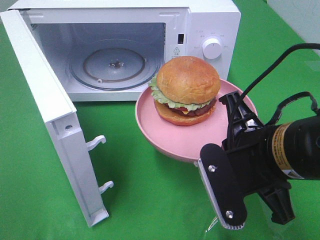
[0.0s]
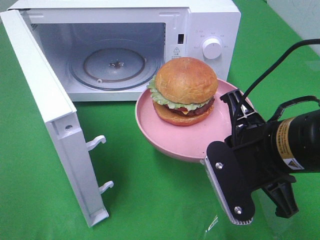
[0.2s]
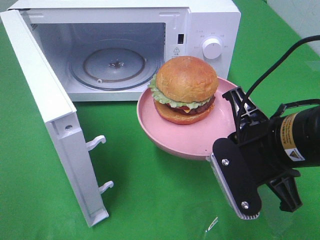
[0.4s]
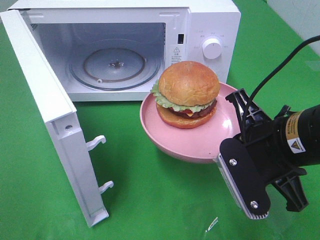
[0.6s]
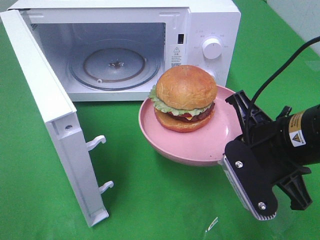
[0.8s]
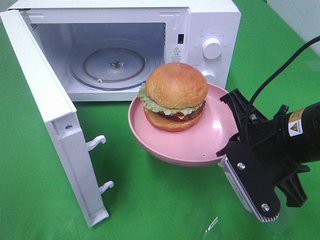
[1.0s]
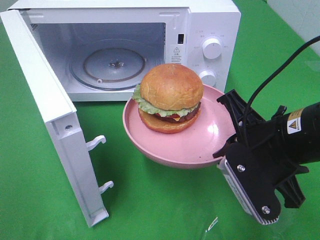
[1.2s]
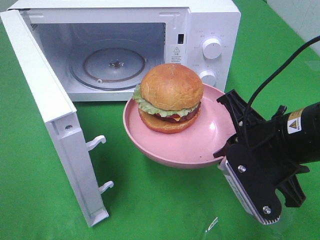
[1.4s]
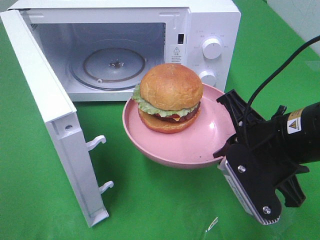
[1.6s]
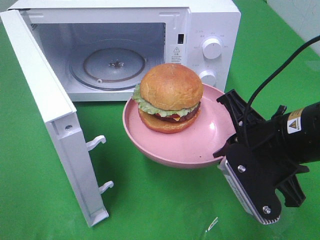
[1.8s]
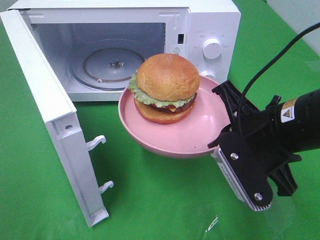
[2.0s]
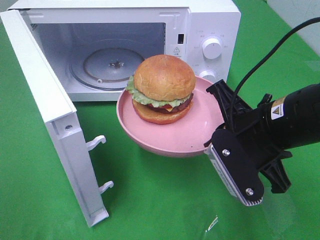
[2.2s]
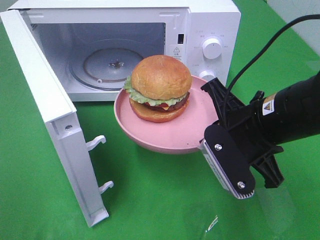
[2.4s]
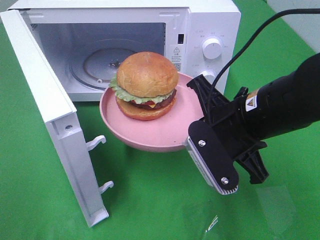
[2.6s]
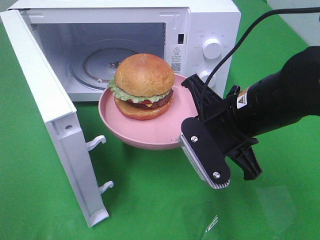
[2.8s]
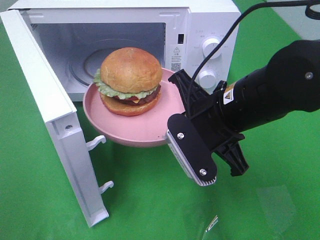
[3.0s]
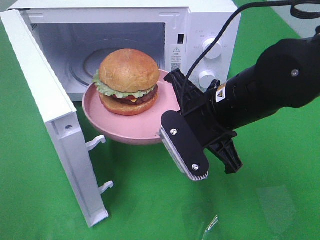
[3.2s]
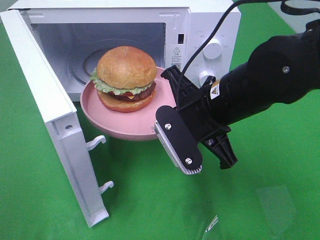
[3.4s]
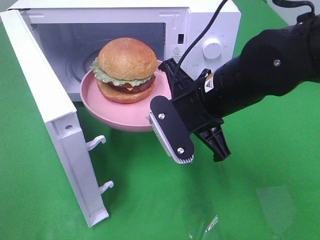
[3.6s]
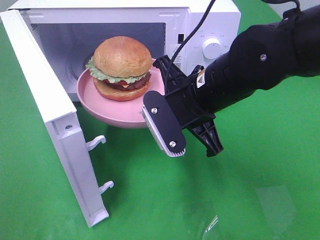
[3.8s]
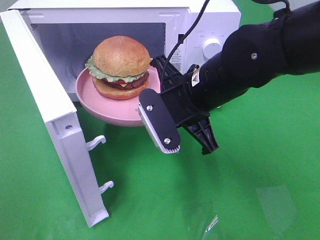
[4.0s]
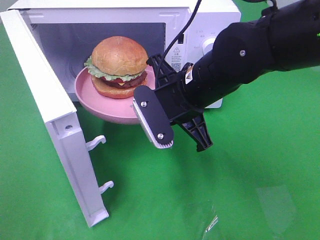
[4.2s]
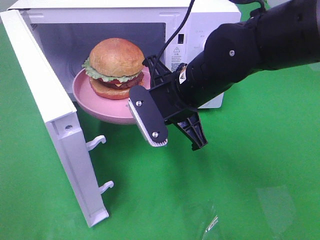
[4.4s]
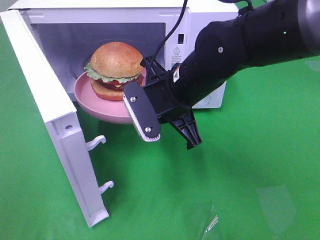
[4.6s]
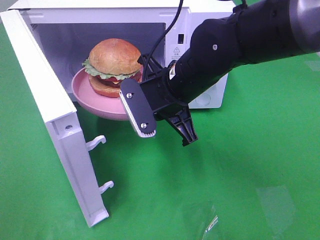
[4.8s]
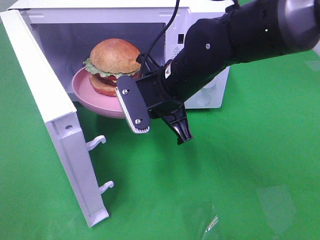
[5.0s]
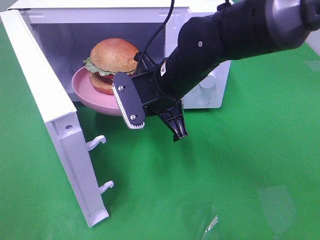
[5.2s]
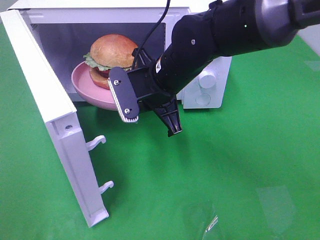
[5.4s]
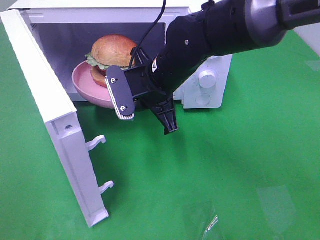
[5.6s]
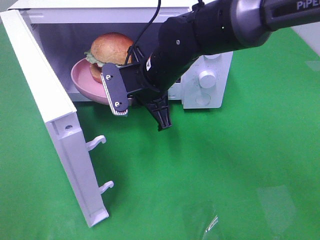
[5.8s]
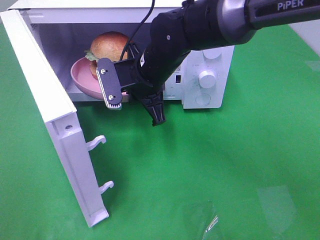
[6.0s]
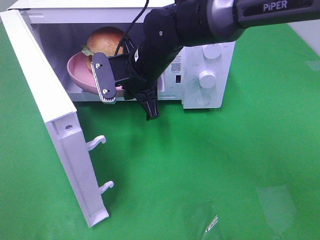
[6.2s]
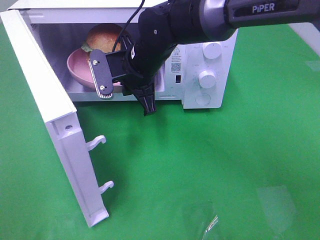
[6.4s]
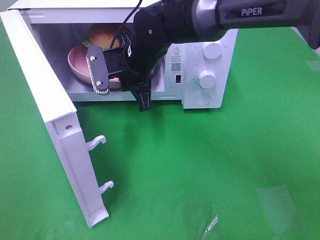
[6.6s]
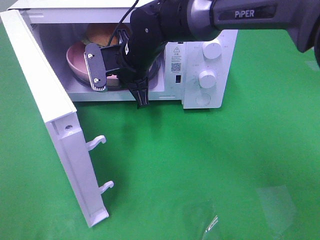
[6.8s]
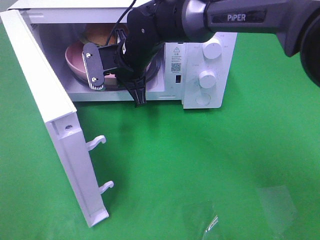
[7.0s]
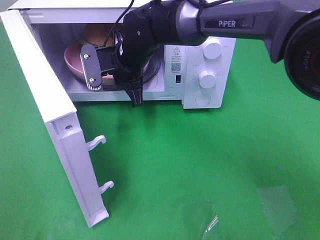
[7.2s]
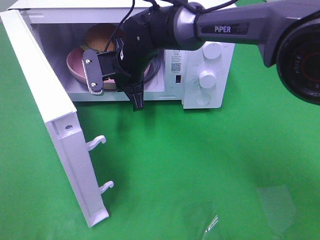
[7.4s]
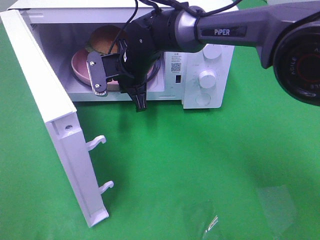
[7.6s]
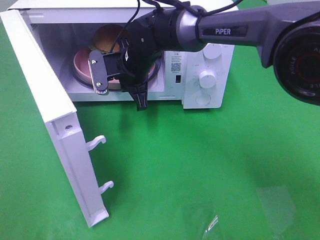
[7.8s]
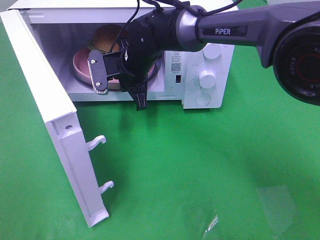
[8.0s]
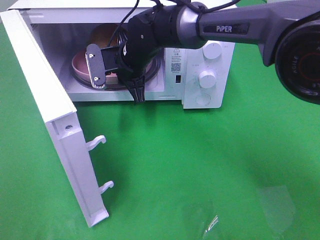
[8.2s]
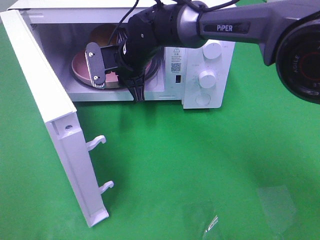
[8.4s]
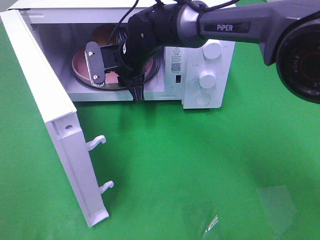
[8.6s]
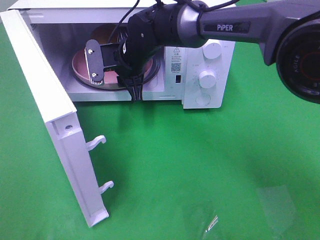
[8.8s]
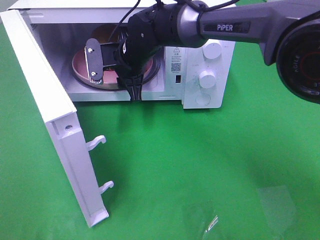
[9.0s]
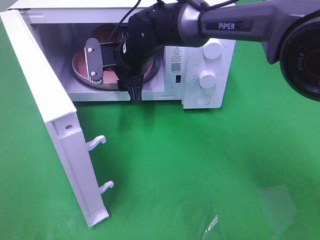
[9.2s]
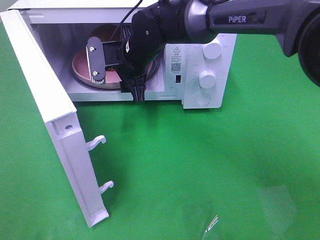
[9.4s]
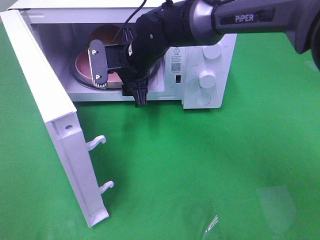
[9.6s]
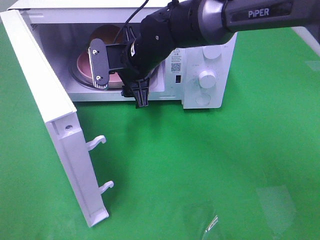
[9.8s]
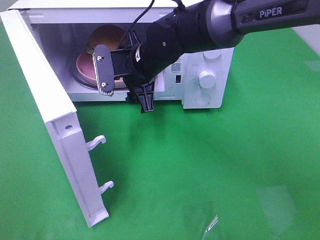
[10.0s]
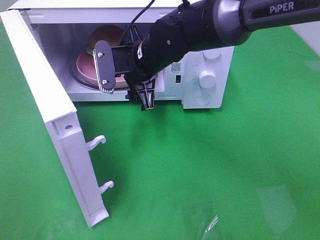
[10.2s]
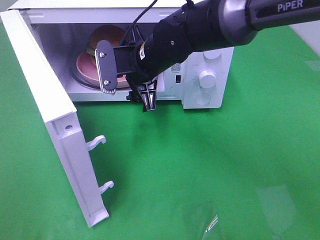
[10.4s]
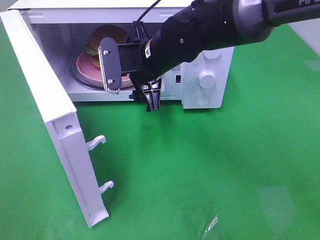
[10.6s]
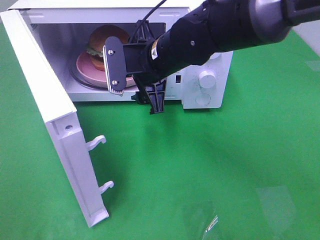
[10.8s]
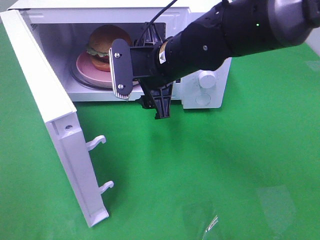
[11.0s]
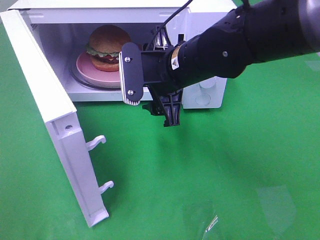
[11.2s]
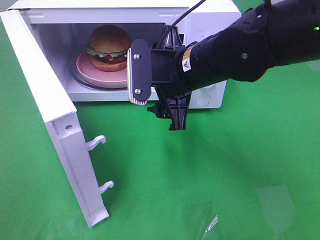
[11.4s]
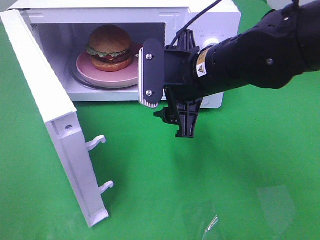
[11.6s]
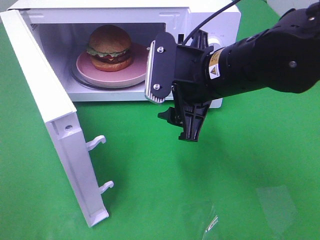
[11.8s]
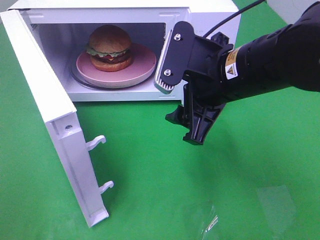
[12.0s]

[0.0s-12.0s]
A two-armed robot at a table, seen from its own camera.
Task of the whole recording: Heat the burger.
Step, 0.0s to 8.2s: Right hand: place the plate in the microwave.
0.0s to 1.6s: There are only small adjustments of the grippers.
1.6s to 3.0s: The right gripper goes roughly 5 cm to the left.
3.0s to 4.4s: The right gripper is displaced forward by about 5 cm.
4.4s to 6.0s: The right gripper travels forward and to the left by approximately 10 cm.
6.0s to 7.6s: The right gripper moves forward, approximately 5 cm.
7.6s to 9.0s: The right gripper opens up.
9.0s to 10.4s: The right gripper moves backward, some 5 cm.
10.4s to 12.0s: The right gripper shifts roughly 15 cm backward and to the right.

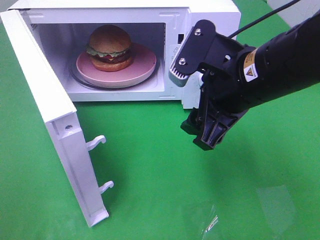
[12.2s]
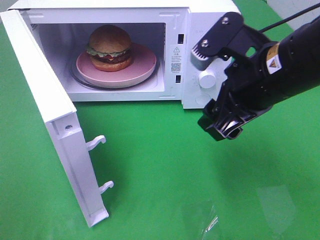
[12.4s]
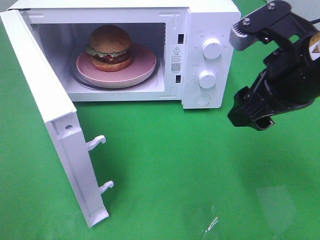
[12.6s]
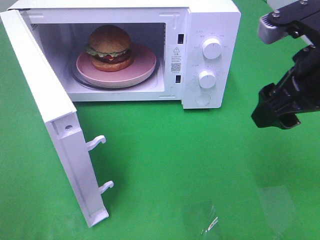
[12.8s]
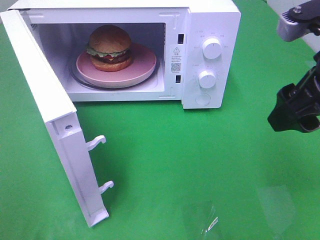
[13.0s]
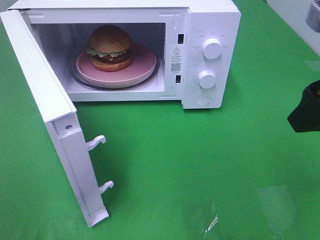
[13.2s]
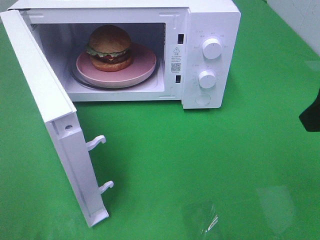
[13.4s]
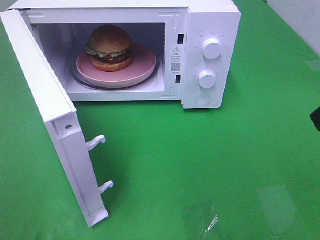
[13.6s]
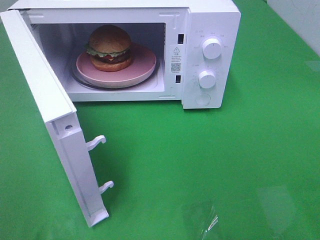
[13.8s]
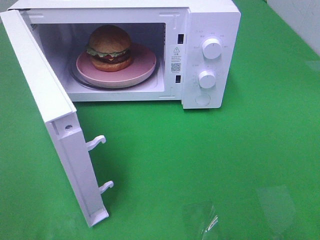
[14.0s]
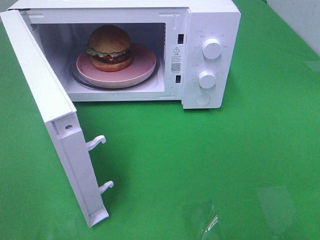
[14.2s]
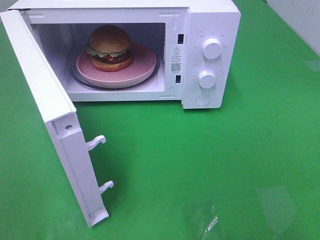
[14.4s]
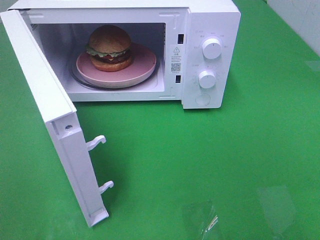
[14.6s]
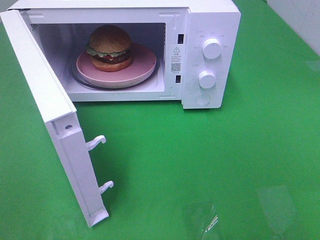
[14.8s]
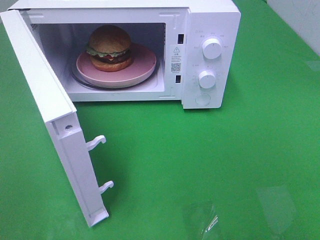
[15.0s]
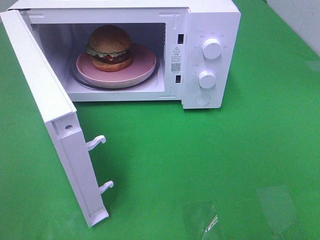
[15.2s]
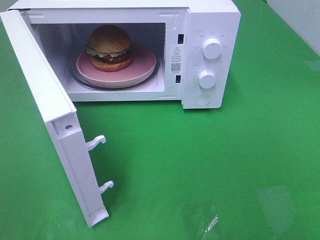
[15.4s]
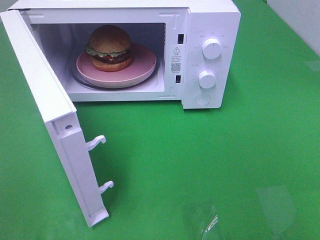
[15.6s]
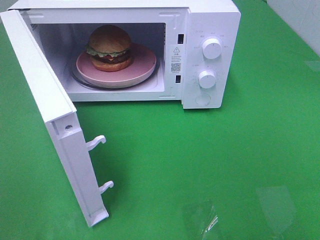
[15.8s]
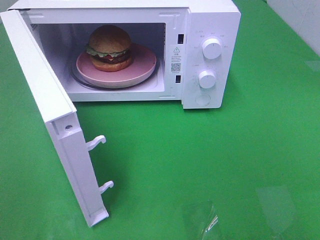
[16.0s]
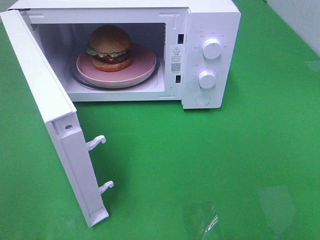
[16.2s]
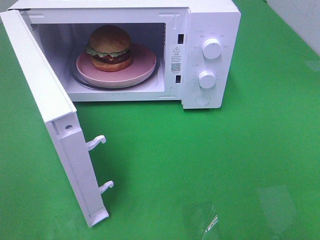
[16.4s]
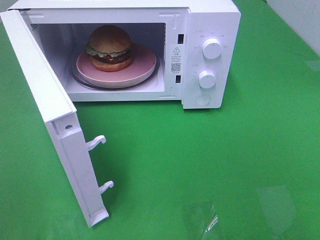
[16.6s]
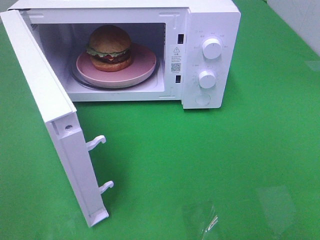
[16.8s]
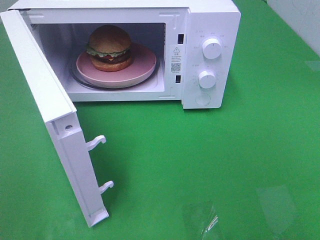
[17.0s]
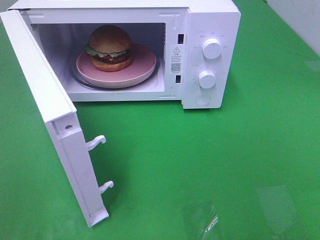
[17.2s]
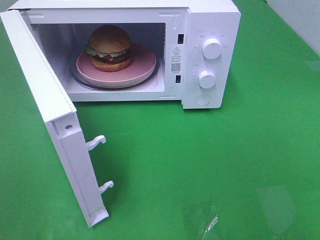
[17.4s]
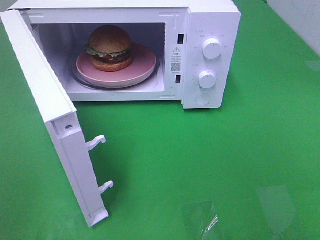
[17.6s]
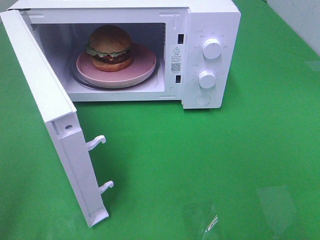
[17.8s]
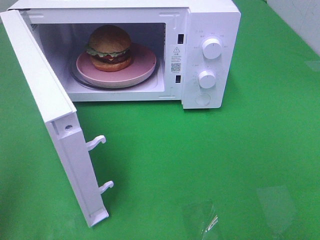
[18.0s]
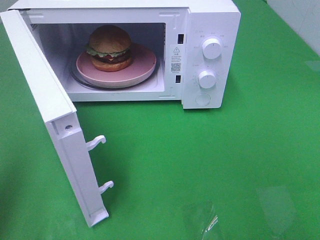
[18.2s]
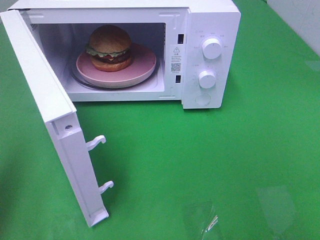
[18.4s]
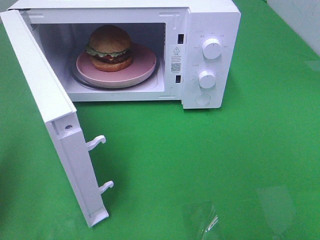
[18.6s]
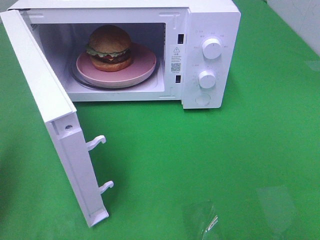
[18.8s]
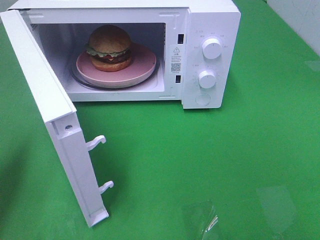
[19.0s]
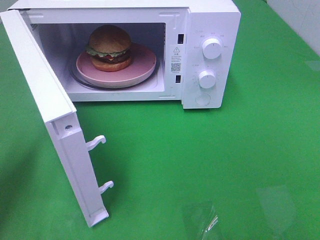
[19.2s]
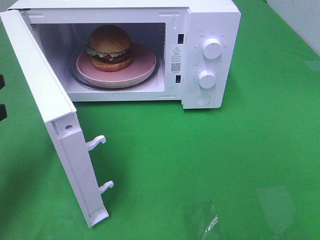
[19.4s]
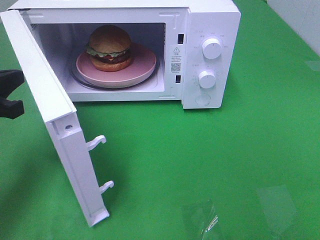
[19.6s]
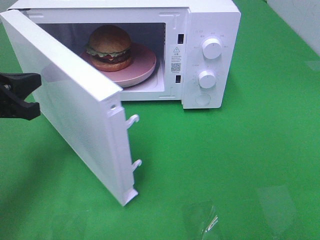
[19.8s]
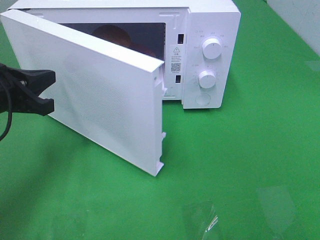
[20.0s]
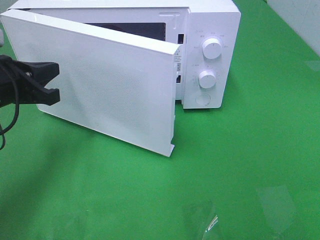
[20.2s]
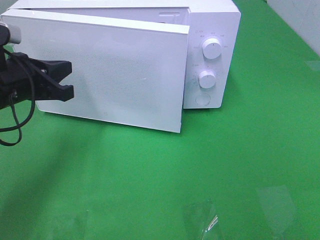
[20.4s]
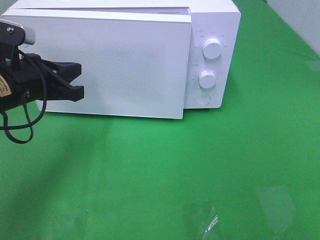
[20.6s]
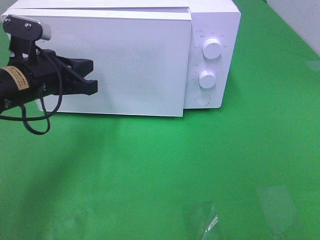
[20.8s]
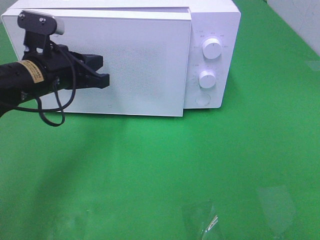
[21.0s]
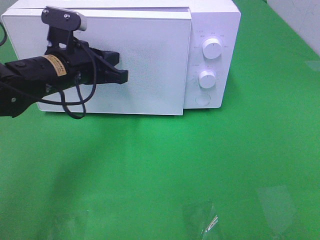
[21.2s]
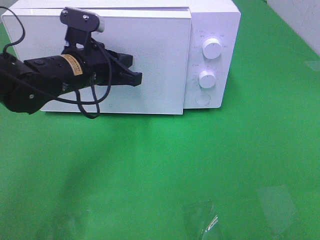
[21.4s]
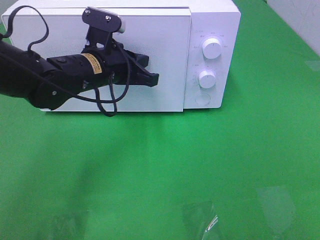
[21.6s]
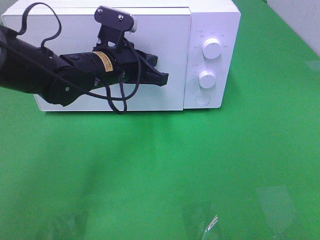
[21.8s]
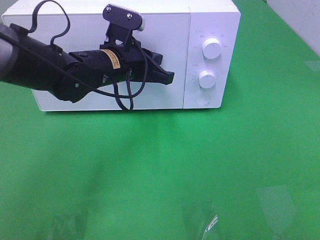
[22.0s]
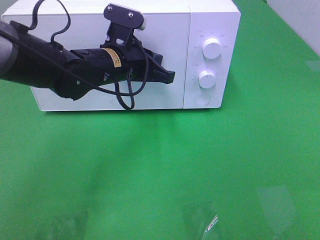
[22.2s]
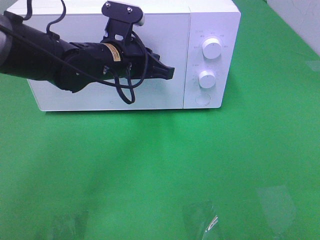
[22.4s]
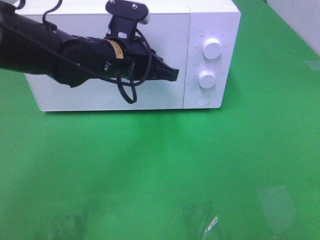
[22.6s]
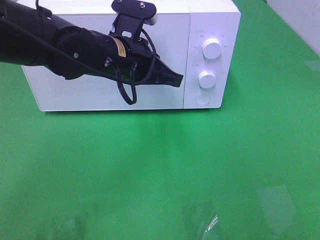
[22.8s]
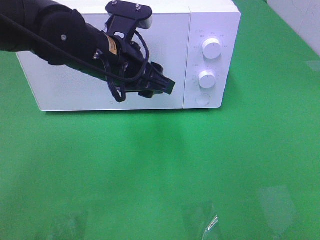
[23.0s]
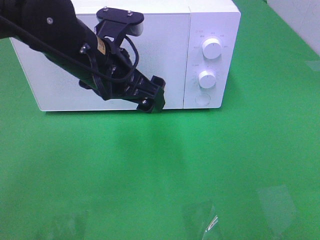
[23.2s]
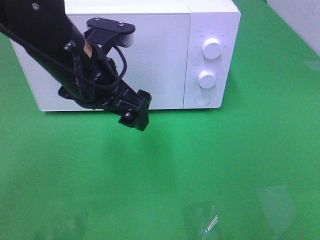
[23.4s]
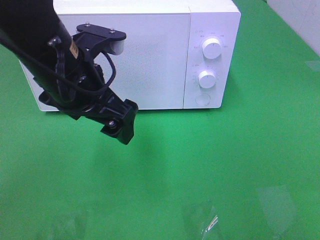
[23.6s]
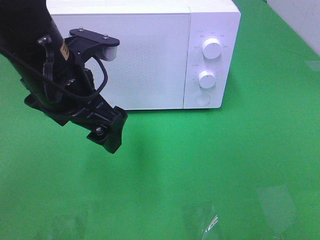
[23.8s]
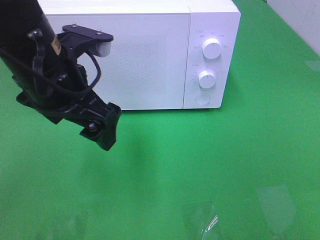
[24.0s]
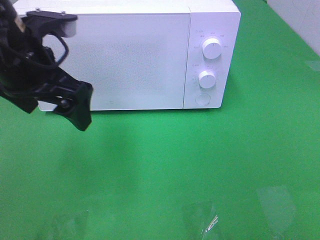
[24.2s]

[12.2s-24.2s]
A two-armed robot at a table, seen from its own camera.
Task of the whole recording: Heat the burger.
Step, 12.2s to 21.8s: Left hand: close the microwave door.
12.2s to 13.8s: The right gripper heads to the right, backward and upward, covering some 20 cm.
15.2s to 16.6s: Neither gripper changes place.
16.6s to 18.2s: The left gripper heads forward, covering roughly 10 cm, and closes up.
18.2s to 19.8s: The left gripper travels forward, downward and to the right by about 20 cm.
19.8s to 21.2s: The left gripper is displaced to the right and forward by some 15 cm.
21.2s to 22.6s: The left gripper travels to the right by approximately 10 cm.
22.6s to 24.2s: The left gripper moves to the left, backward and upward, about 15 cm, and opens its fingers.
